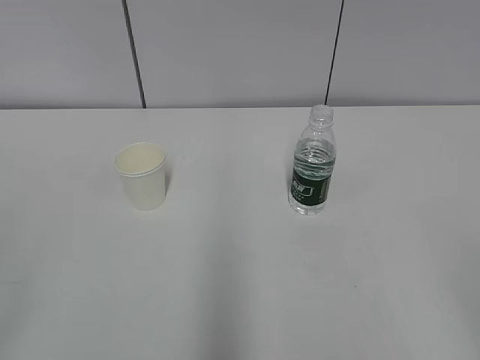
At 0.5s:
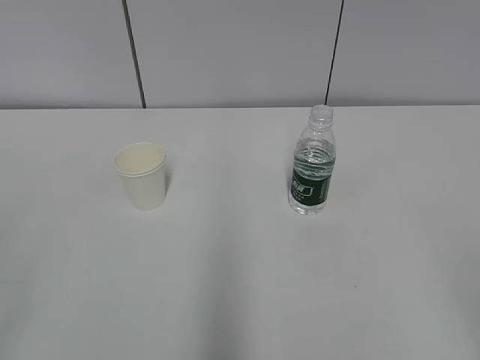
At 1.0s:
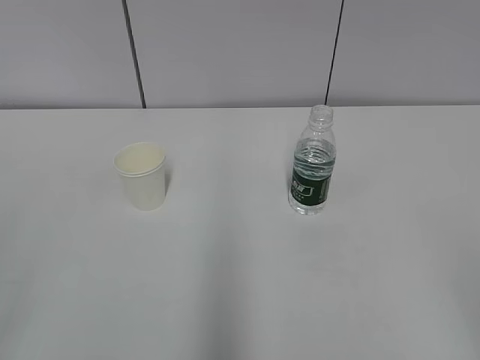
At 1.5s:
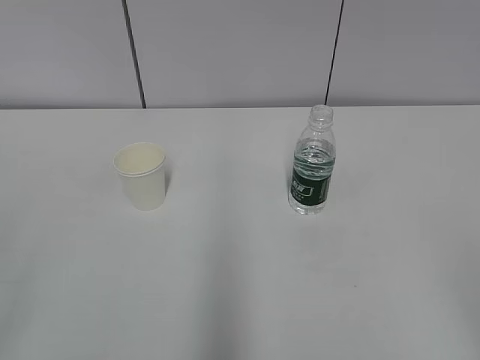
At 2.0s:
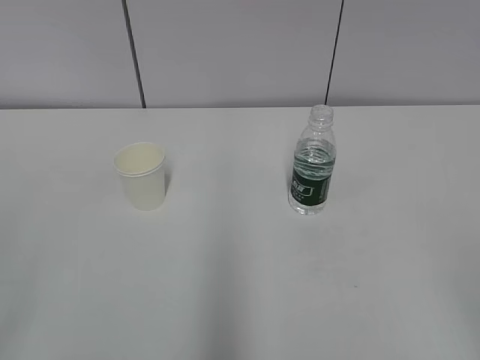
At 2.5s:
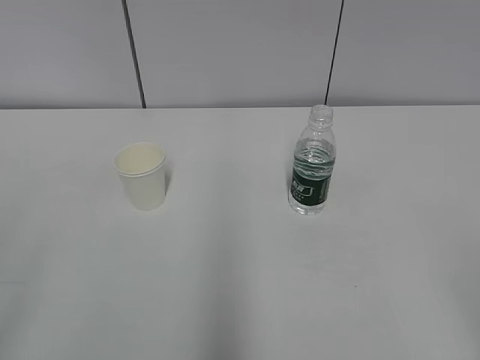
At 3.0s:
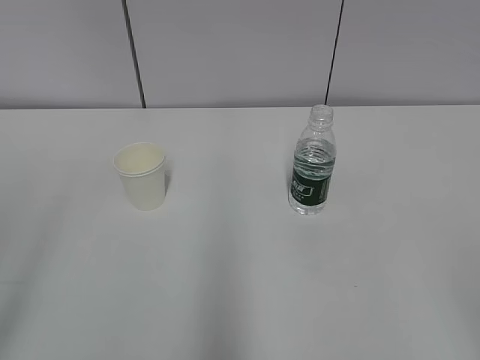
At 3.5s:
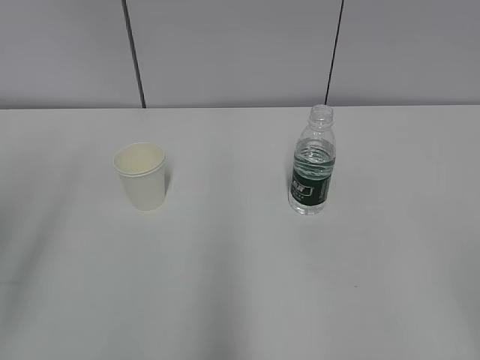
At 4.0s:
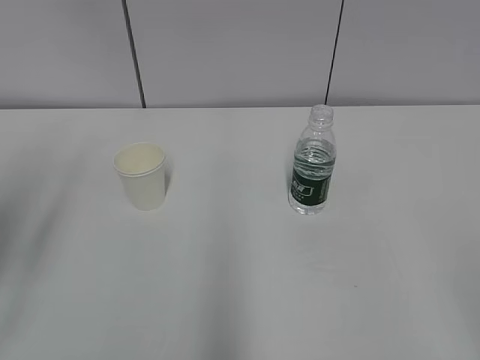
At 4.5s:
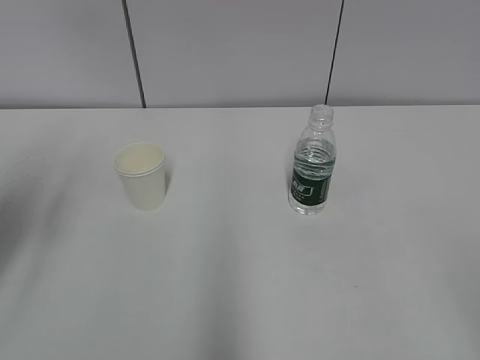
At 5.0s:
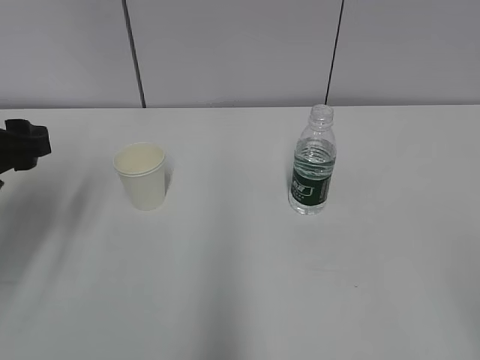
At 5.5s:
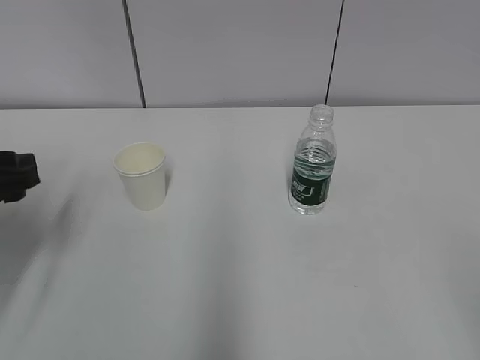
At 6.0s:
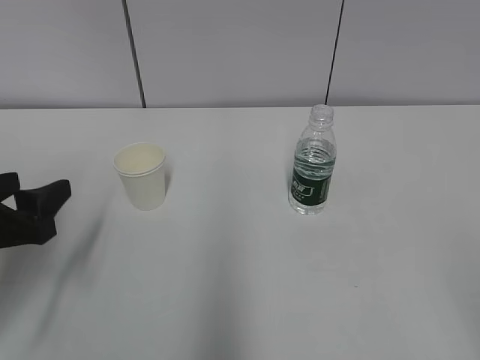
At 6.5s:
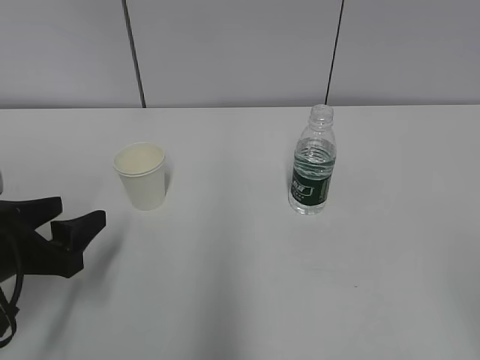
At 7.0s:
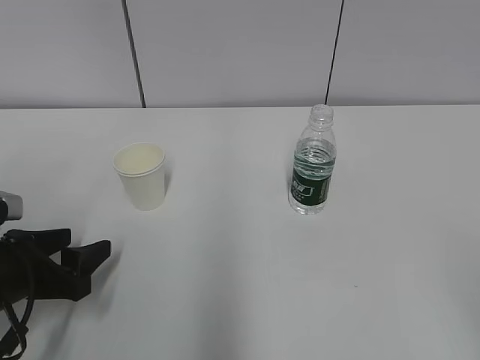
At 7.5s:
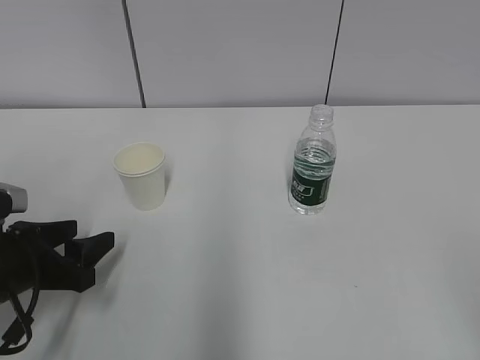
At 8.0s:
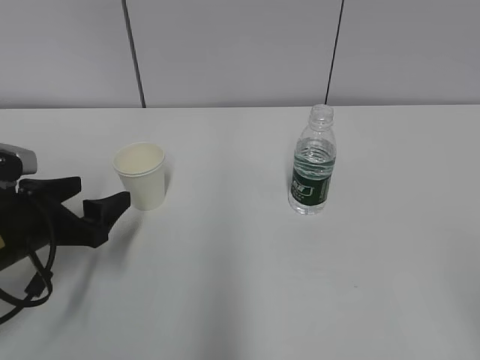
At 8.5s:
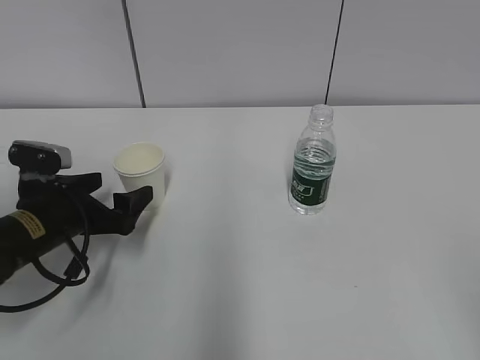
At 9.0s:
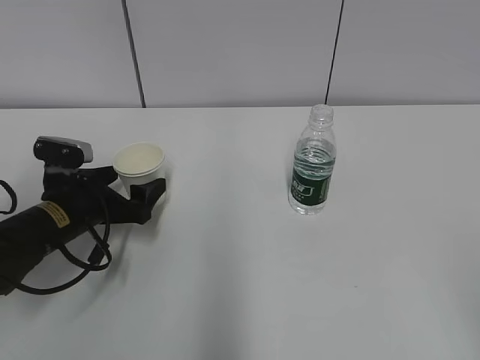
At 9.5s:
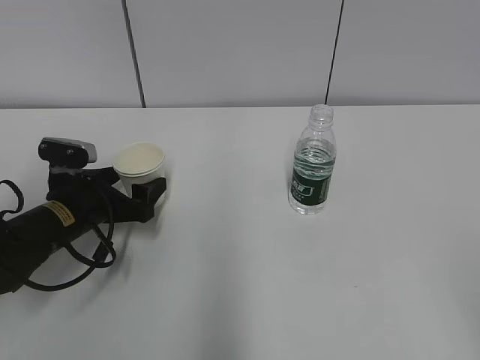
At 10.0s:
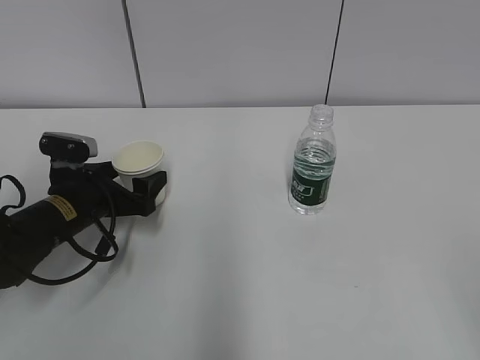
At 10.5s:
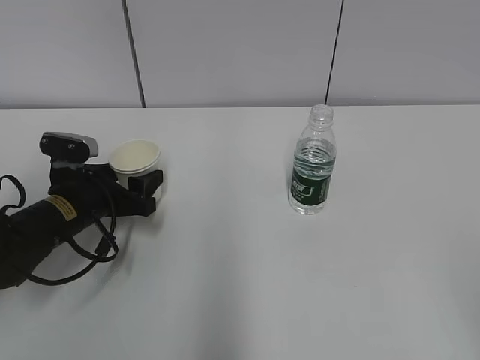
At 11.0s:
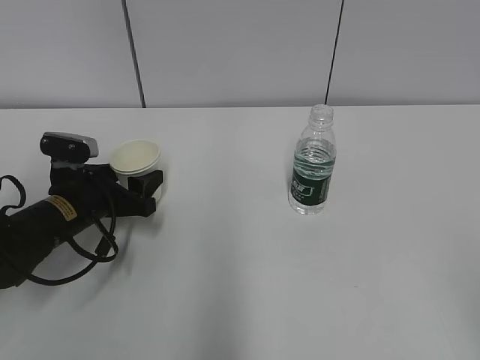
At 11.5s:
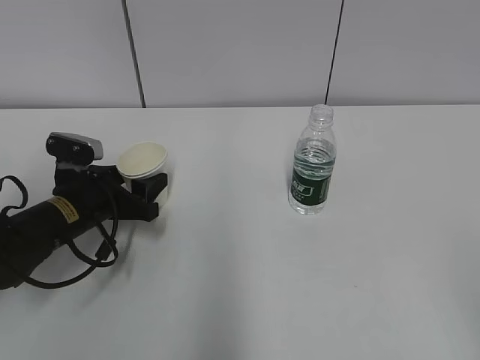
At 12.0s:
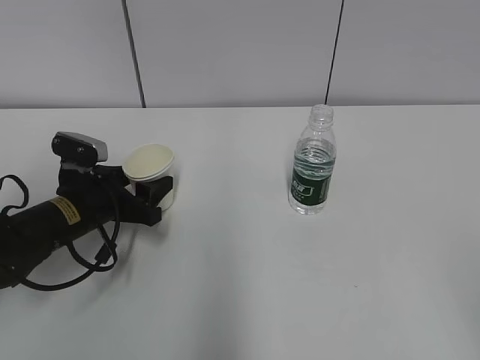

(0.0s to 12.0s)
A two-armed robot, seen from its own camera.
Step, 0.0s - 9.5s: Grab the paper cup with the left hand.
2.0s - 4.0s: The left gripper goes some 15 cm forward.
4.0s - 6.0s: The left gripper travels downward by some 15 cm.
6.0s - 8.0s: The left gripper ends up roughly 5 cm from where it was, and opens.
8.0s - 10.0s: The left gripper shifts about 10 cm forward.
10.0s - 12.0s: The left gripper closes.

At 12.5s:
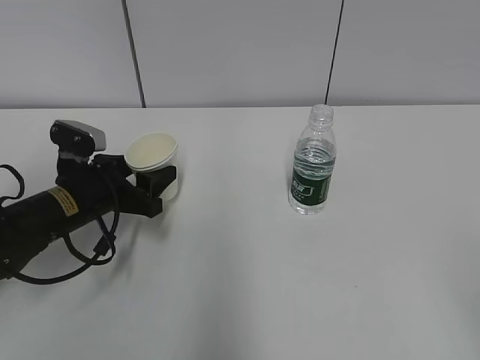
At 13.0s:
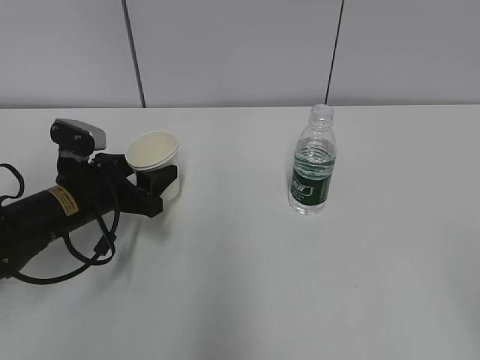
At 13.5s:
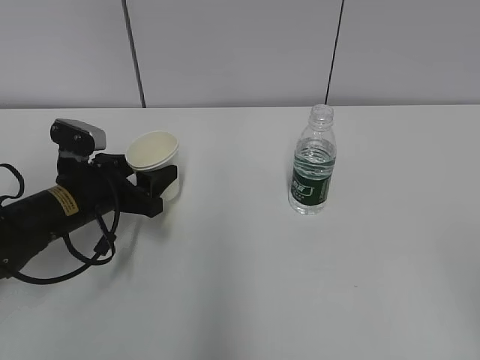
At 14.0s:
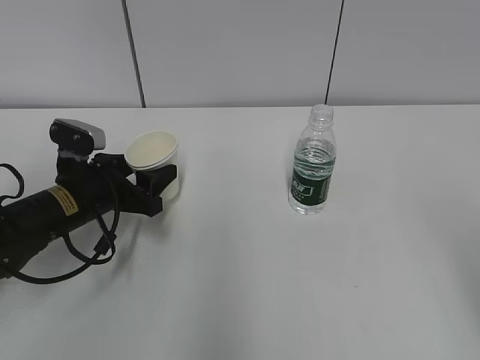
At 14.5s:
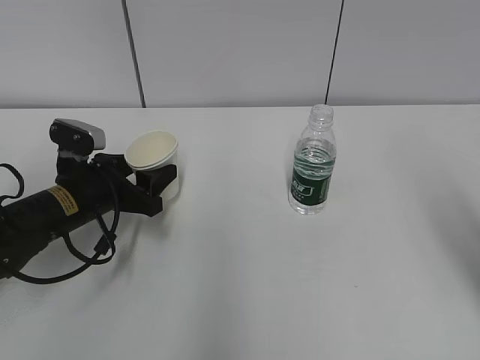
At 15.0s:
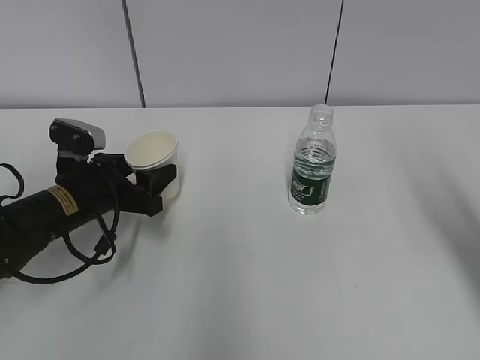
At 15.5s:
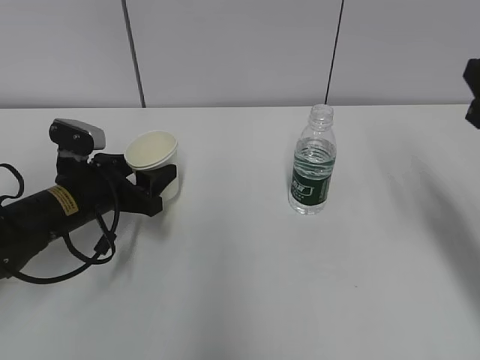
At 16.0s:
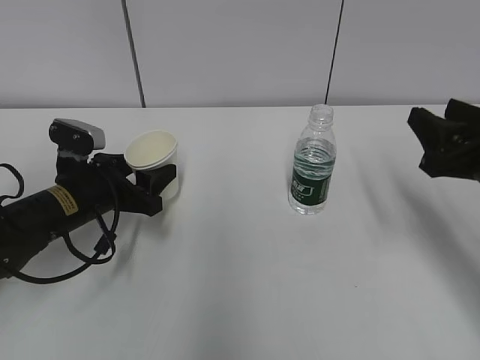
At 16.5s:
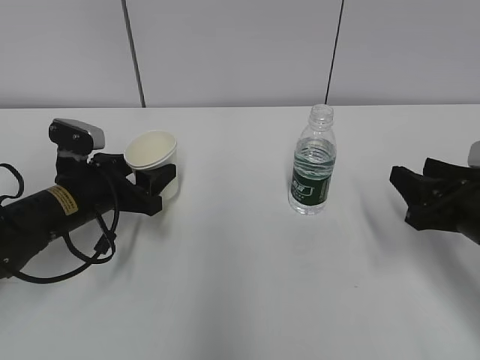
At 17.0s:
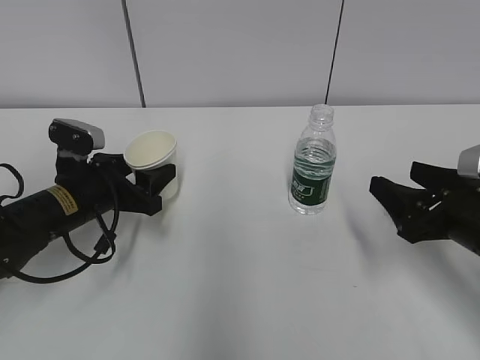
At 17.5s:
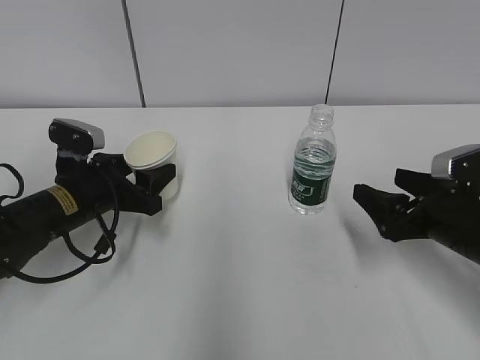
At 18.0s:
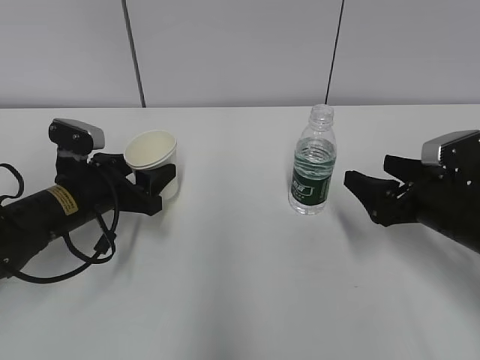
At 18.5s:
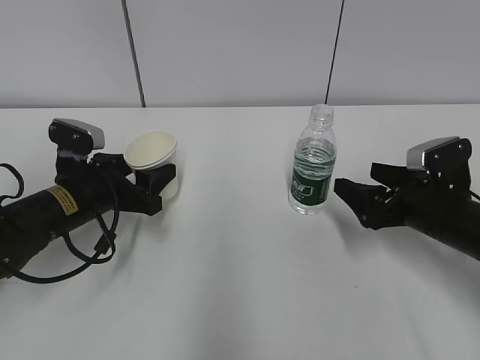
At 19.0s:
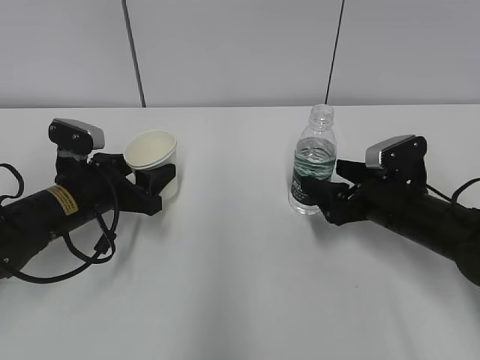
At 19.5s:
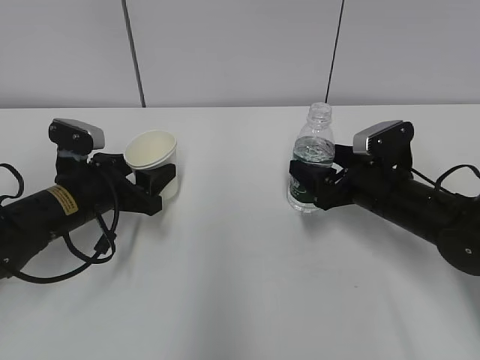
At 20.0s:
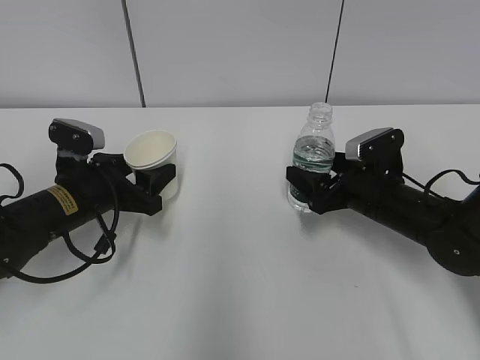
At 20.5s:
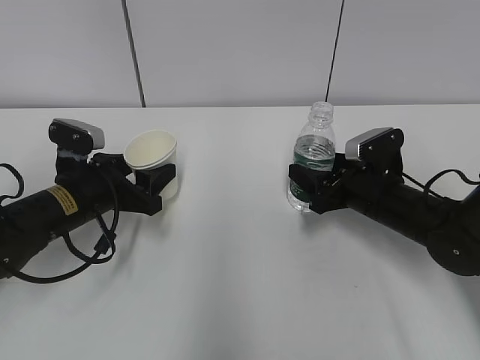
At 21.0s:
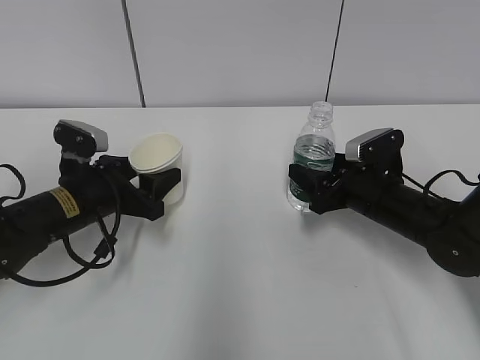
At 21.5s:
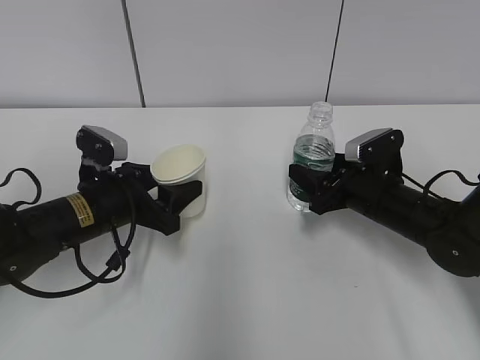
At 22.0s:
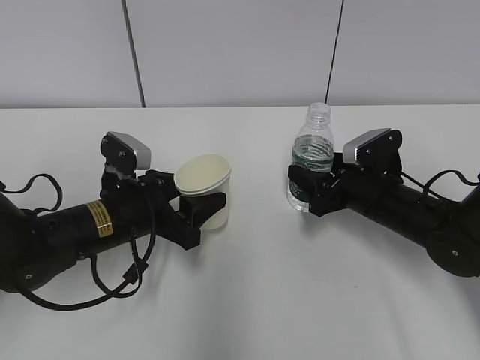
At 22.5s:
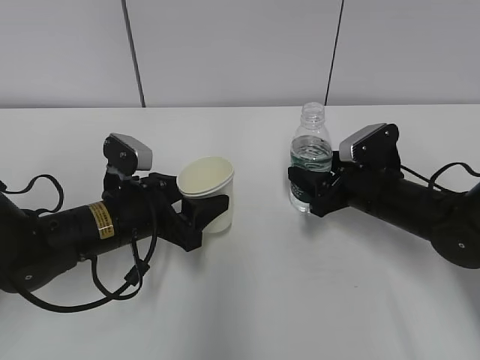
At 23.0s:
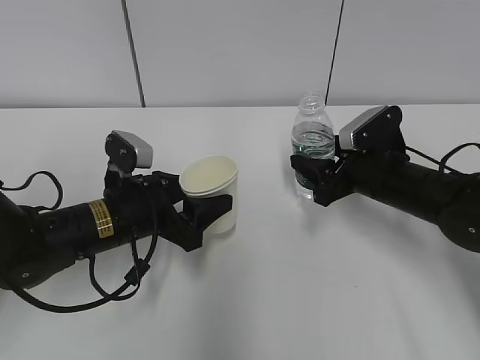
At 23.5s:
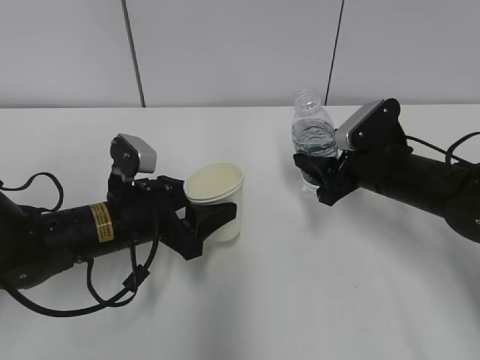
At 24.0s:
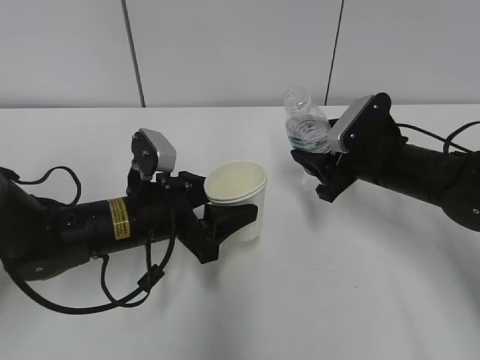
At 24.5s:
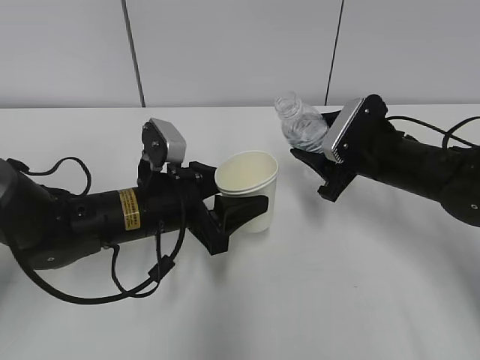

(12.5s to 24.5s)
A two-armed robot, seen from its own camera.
Step, 12.5s - 18.5s: Grab the water bottle with the right hand.
Step, 19.0s - 23.0s: Lift the paper cup with the left hand.
12.5s - 14.5s: The right gripper heads forward, covering approximately 15 cm.
14.5s - 16.5s: The right gripper goes some 20 cm downward and forward.
16.5s - 18.5s: The right gripper travels forward by roughly 5 cm, and opens up.
18.5s - 20.5s: The right gripper shifts approximately 5 cm forward and to the left, and closes its fingers.
20.5s - 22.5s: The left gripper travels to the right by some 5 cm.
22.5s - 24.5s: The right gripper moves upward, some 5 cm.

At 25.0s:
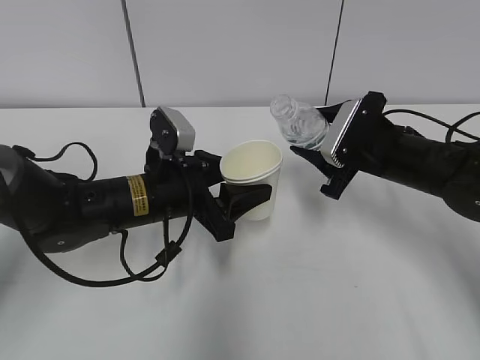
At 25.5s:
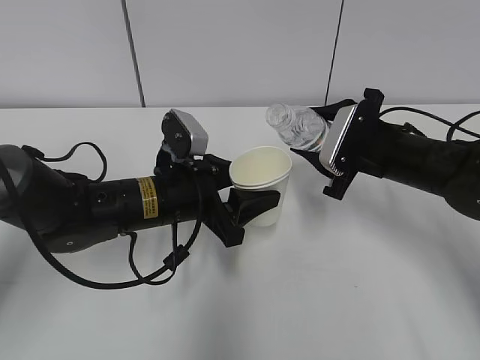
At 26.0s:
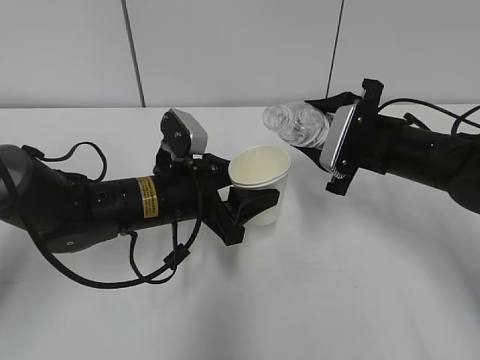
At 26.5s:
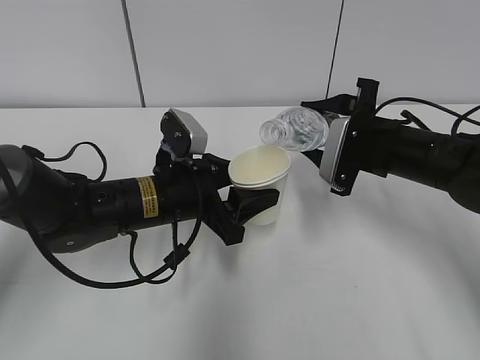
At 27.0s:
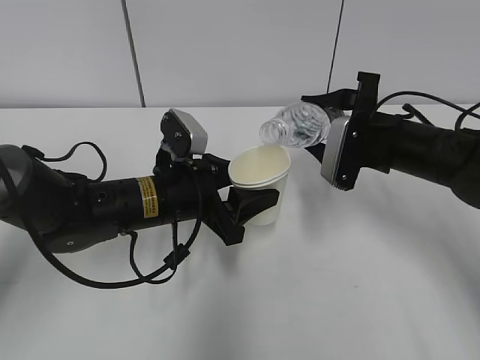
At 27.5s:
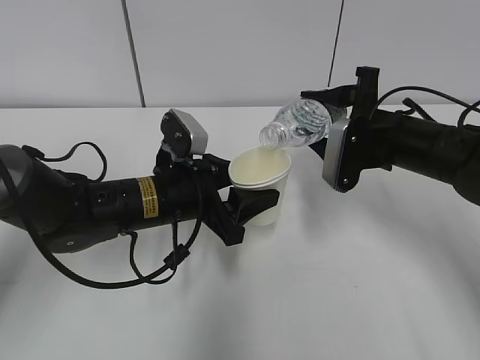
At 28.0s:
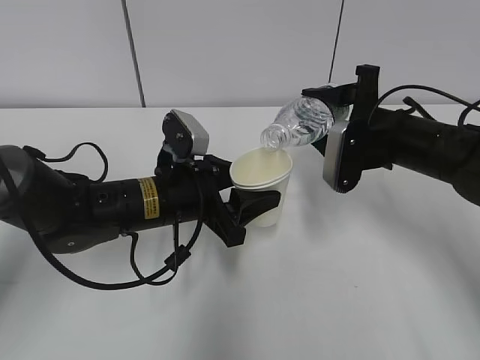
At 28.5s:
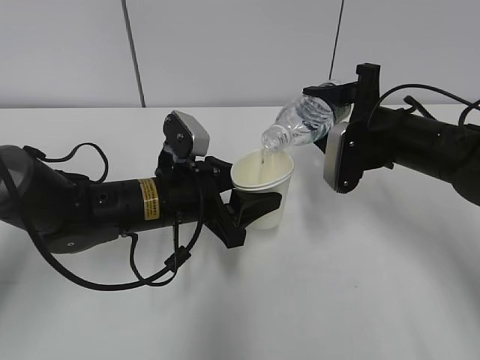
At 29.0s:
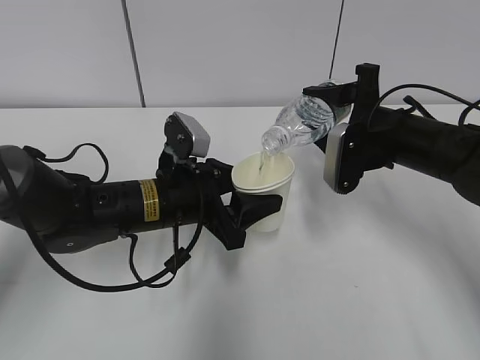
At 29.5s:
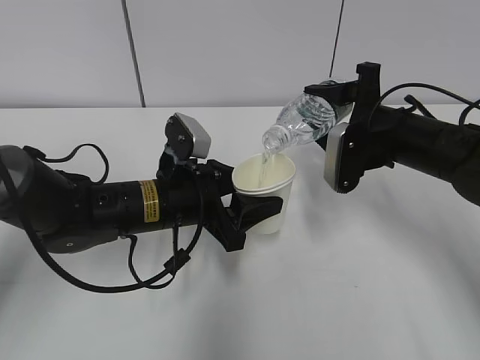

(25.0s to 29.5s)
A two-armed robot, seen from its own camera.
Step, 26.5s - 27.5s: Collect water with the right hand.
27.0s - 29.5s: The grippers move only a little.
